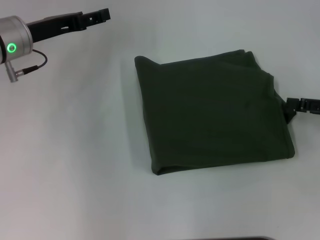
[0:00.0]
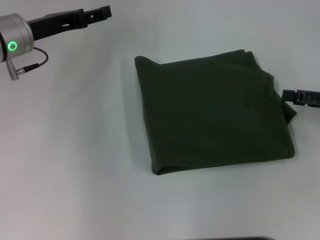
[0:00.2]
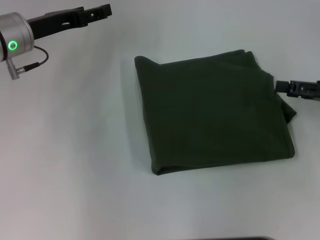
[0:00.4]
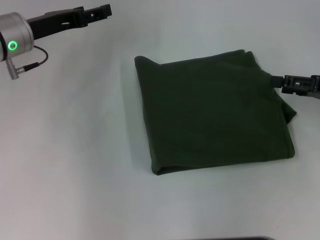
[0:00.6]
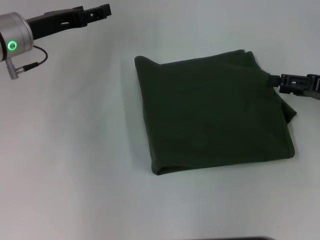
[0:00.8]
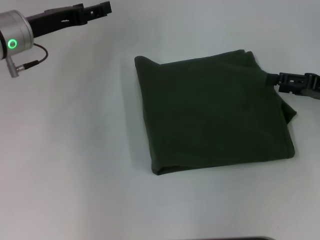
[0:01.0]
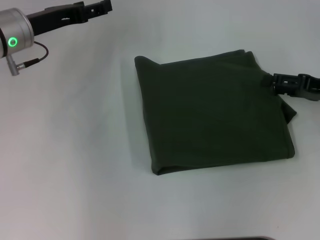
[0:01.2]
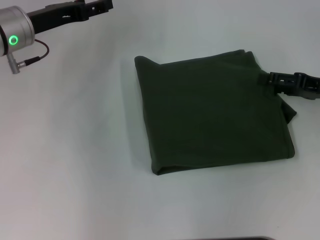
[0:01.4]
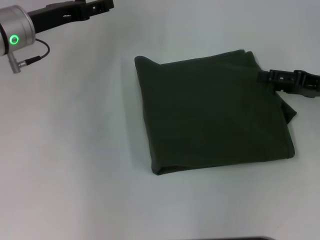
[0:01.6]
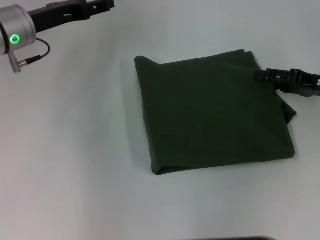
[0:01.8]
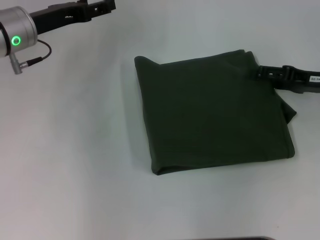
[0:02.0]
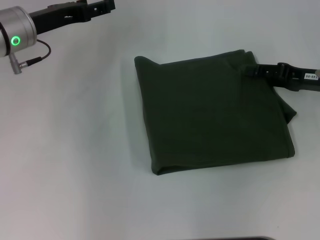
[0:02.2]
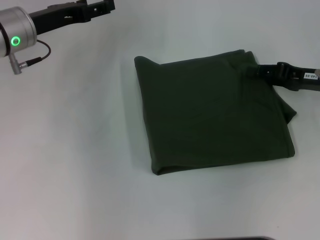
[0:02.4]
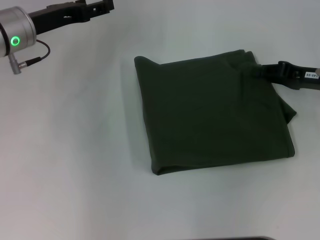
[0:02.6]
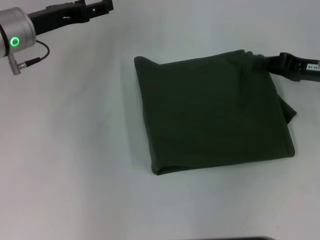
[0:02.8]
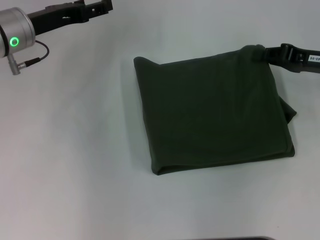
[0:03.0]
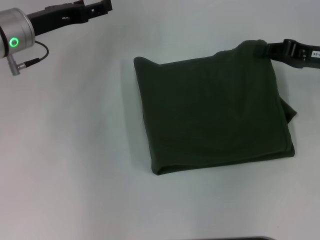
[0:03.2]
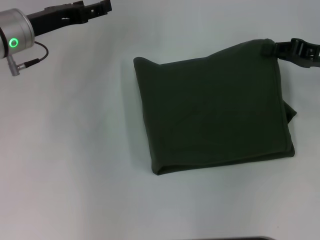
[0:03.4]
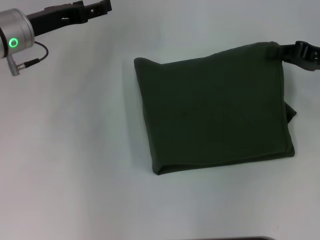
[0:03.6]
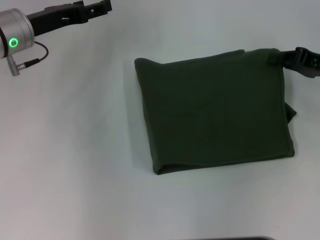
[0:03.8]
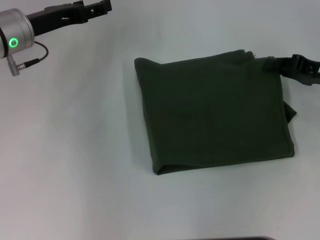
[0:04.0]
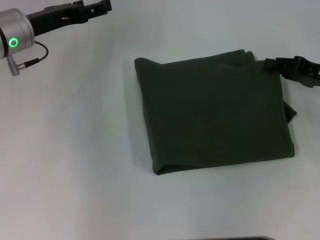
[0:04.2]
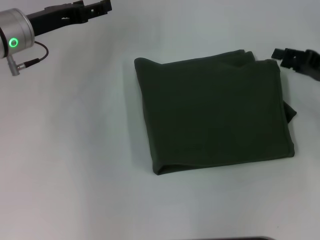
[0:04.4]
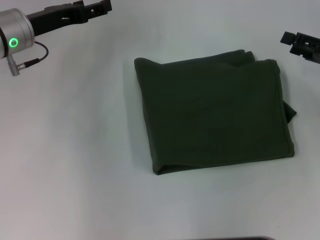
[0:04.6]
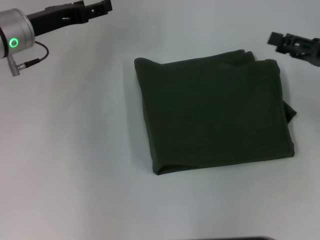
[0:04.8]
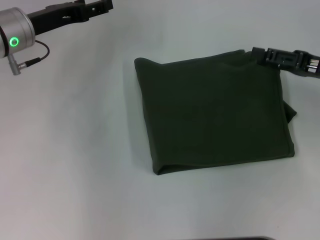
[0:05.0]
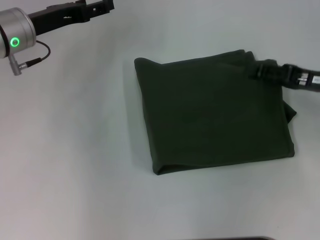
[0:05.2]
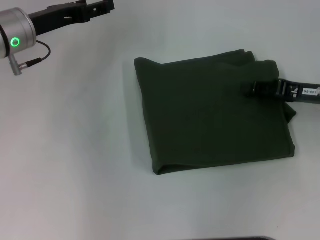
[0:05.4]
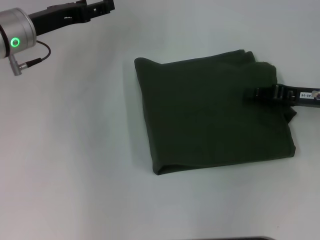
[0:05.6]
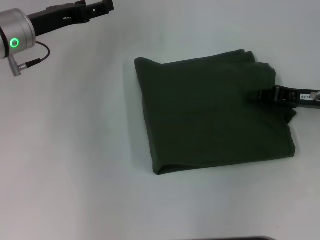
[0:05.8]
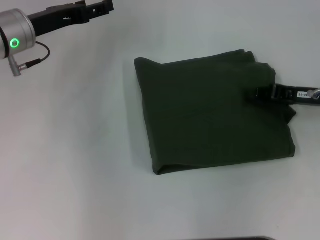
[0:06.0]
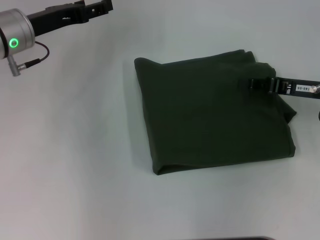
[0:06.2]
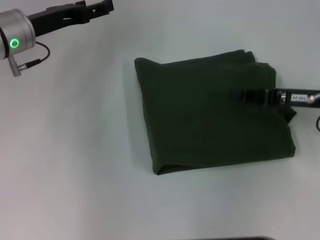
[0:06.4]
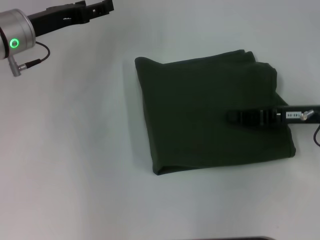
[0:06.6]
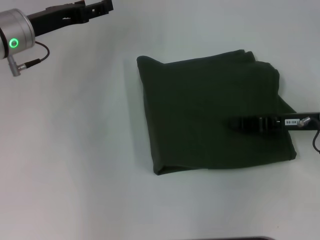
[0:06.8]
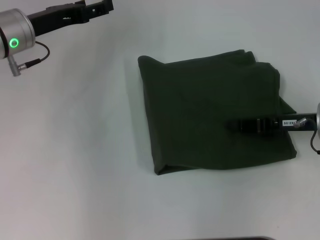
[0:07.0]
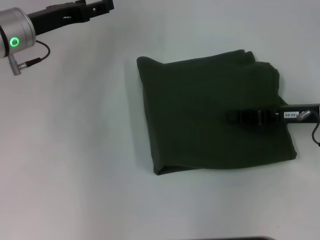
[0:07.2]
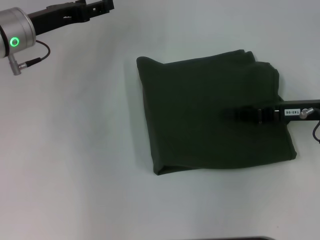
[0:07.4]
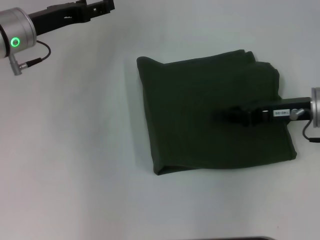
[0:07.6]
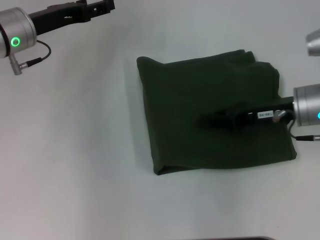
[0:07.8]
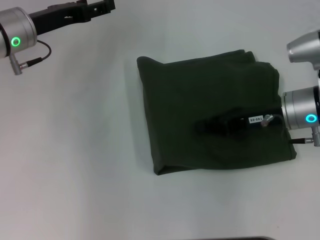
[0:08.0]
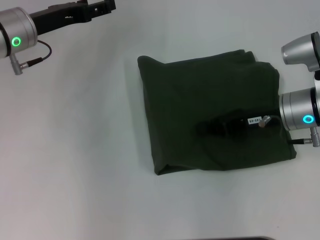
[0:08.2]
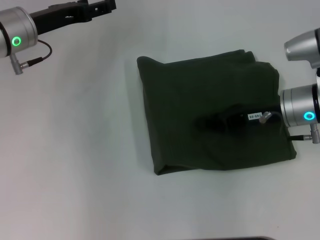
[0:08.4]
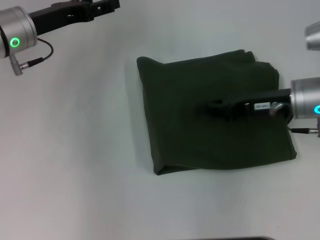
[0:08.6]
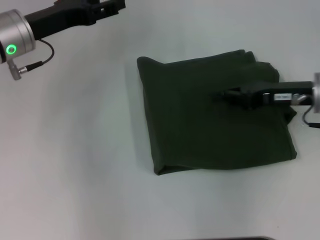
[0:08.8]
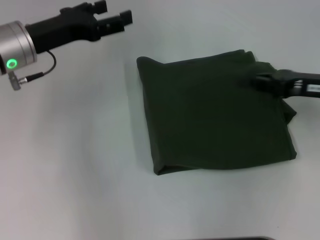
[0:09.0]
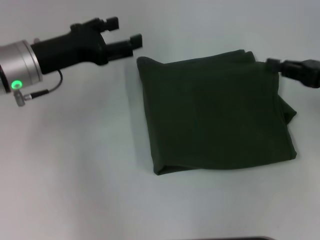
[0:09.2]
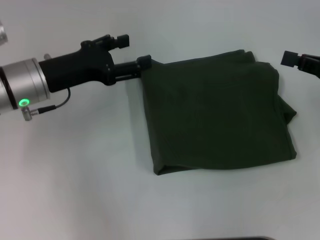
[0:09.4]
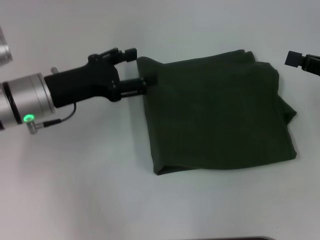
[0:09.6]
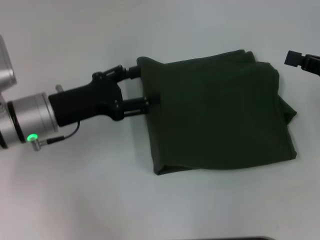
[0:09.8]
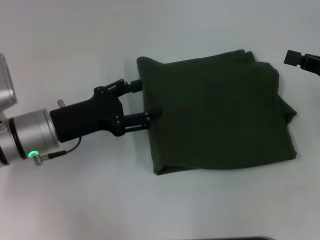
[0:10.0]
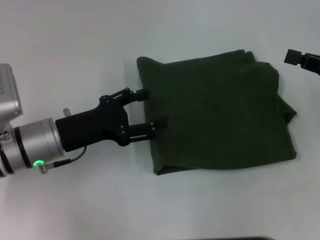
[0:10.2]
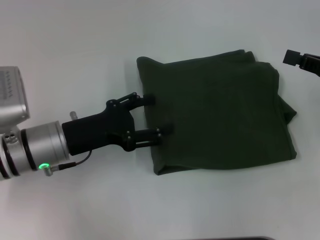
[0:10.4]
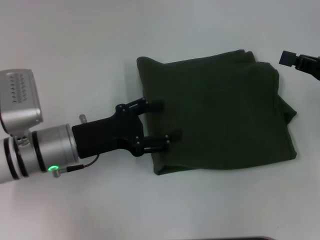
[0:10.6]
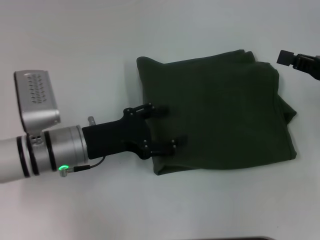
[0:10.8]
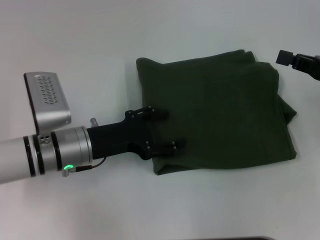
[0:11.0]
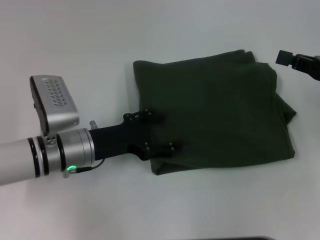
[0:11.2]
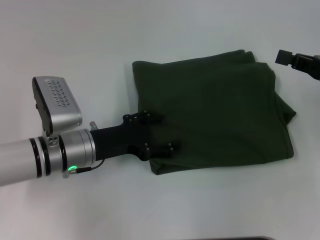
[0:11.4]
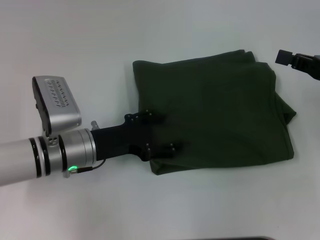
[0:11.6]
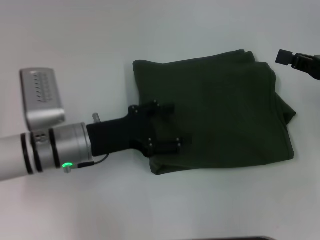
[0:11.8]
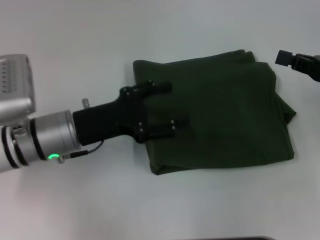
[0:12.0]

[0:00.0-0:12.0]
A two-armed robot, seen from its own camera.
0:00.0 to 0:01.6: The right gripper shifts by roughly 5 cm, and opens up.
0:01.6 to 0:03.0: The right gripper closes up.
0:03.0 to 0:04.4: The grippers stay close to where they were, moving slightly.
0:04.4 to 0:06.0: The right gripper opens, then closes once more.
0:06.0 to 0:07.6: The right gripper moves about 5 cm.
0:07.6 to 0:09.0: The right gripper moves roughly 5 cm.
0:09.0 to 0:10.4: The left gripper shifts some 10 cm backward and downward.
0:10.4 to 0:12.0: The grippers stay close to where they were, moving slightly.

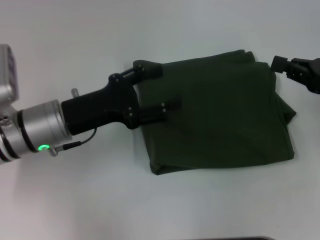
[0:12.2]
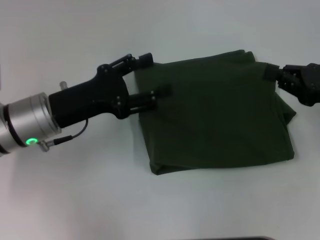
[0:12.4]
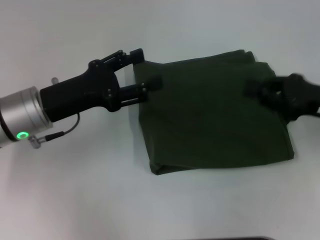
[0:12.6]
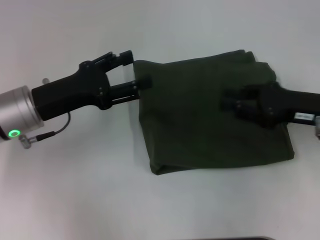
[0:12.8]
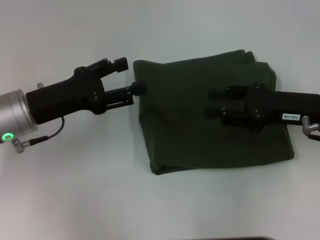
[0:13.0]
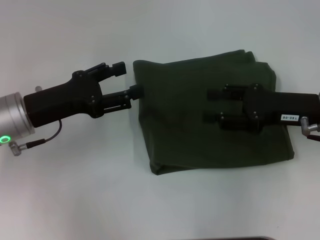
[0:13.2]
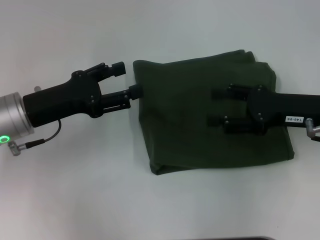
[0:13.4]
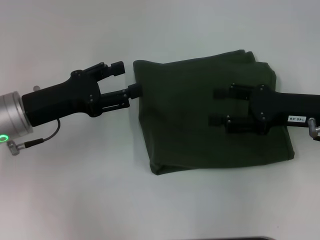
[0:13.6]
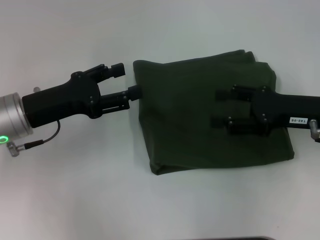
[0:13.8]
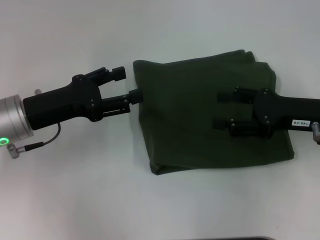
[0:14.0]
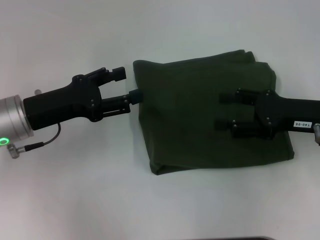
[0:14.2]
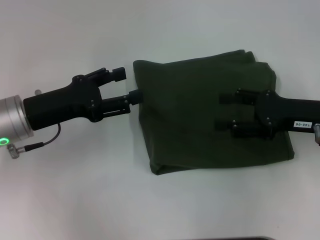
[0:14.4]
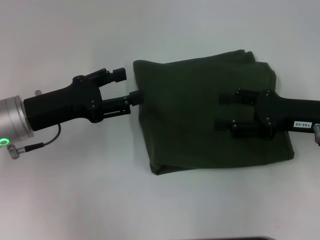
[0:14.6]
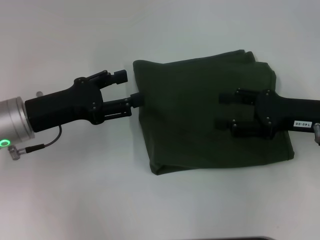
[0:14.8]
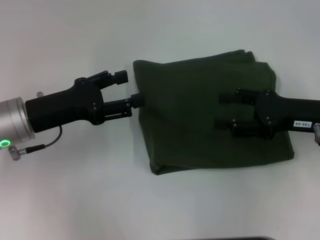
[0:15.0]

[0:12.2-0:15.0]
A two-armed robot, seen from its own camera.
0:12.2 to 0:13.6: The left gripper moves approximately 5 cm, while the right gripper moves to the left, about 5 cm, and opens.
0:13.6 to 0:15.0: Neither gripper changes place.

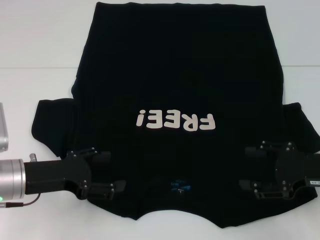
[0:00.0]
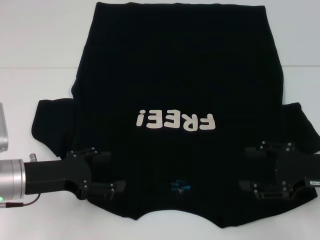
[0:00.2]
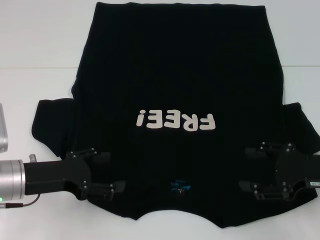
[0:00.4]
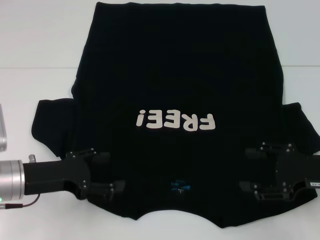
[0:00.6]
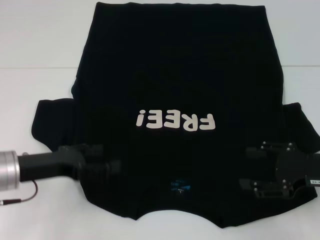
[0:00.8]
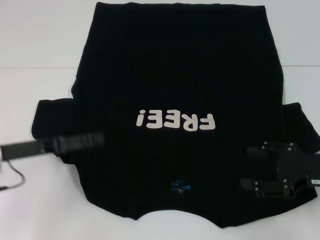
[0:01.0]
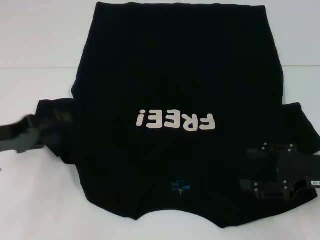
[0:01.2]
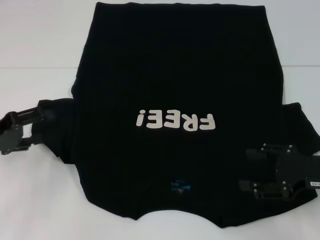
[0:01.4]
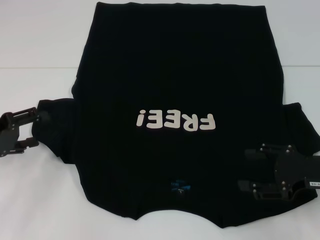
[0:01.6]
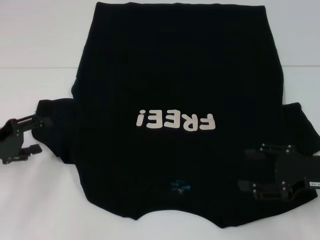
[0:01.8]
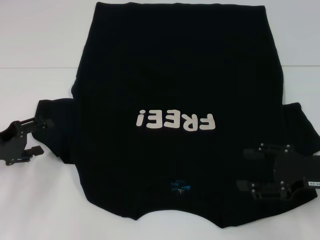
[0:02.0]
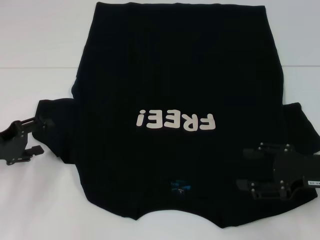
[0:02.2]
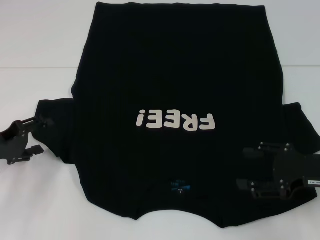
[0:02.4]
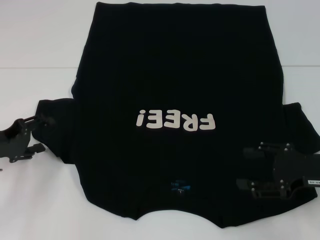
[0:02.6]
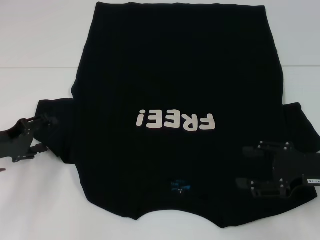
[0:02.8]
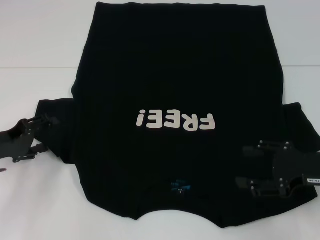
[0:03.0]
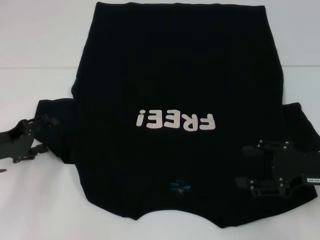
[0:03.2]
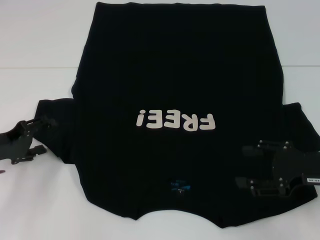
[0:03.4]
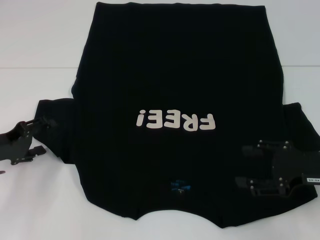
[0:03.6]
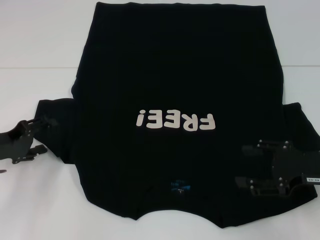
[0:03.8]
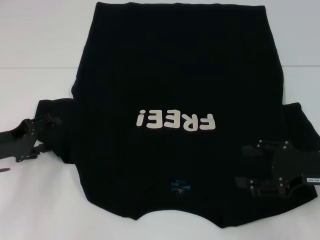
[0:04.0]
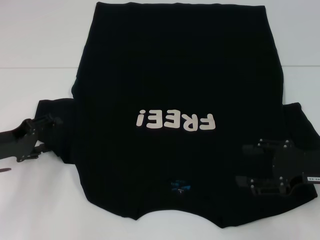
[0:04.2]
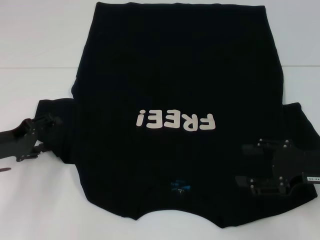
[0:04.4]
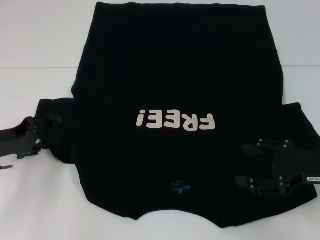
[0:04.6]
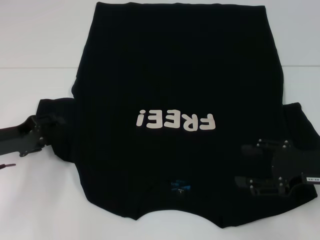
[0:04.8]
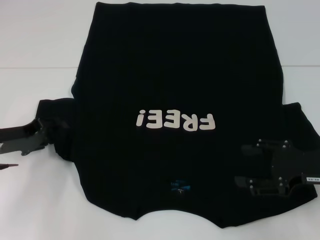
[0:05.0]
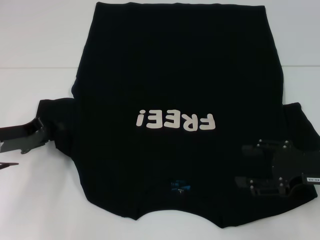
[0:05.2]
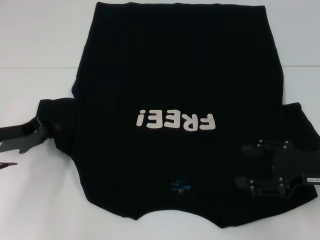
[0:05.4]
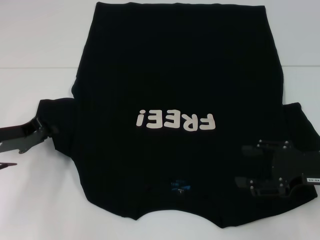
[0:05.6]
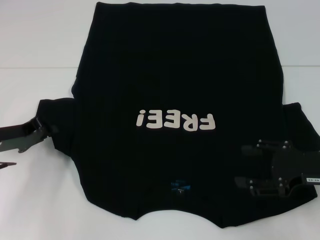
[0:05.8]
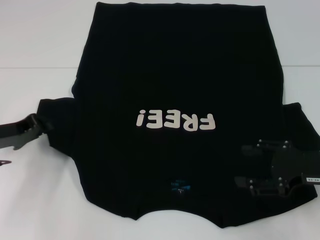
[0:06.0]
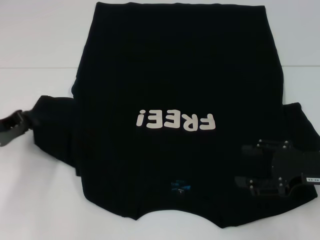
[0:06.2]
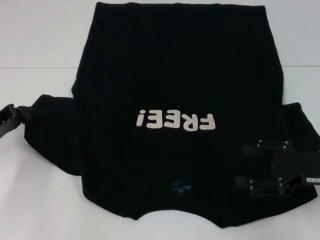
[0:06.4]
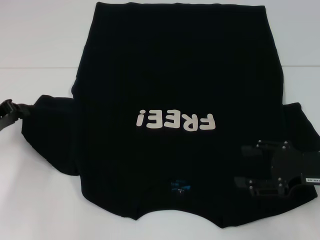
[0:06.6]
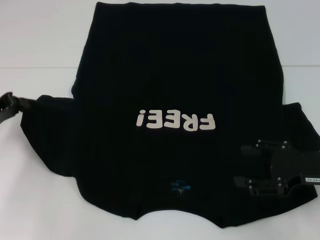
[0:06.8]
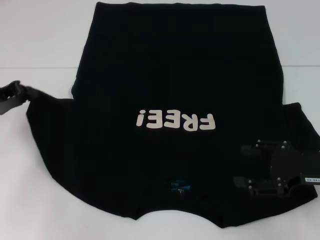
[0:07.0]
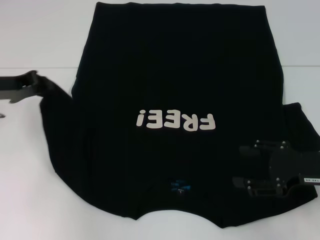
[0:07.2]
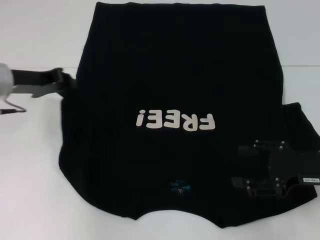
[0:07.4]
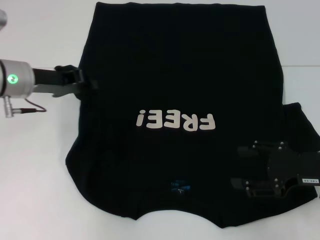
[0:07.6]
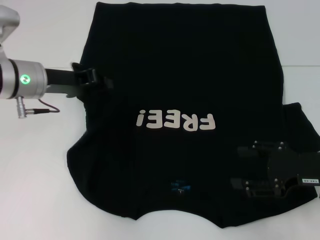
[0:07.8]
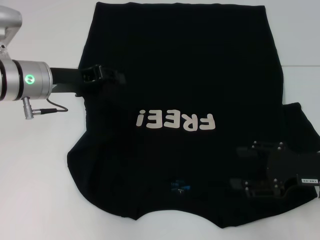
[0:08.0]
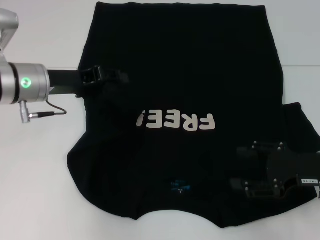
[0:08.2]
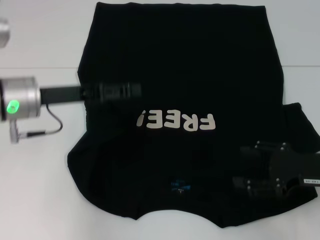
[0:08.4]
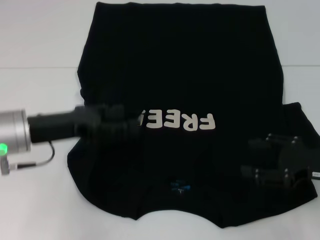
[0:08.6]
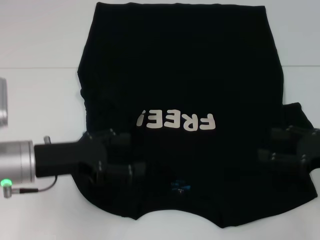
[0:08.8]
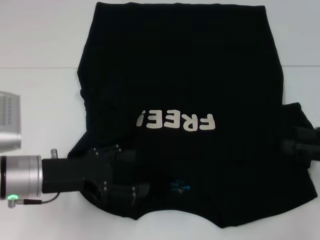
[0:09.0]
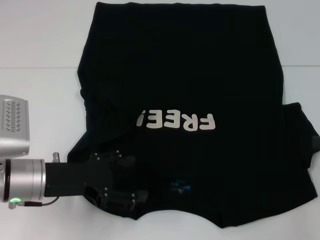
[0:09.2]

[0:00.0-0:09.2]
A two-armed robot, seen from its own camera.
Step, 0:00.0 to 0:08.2: Fold the bottom left sleeve with your left hand.
0:00.0 to 0:01.6: The left gripper is displaced to the left by roughly 10 cm.
0:01.6 to 0:03.0: There are only small adjustments of the grippers.
0:03.0 to 0:04.6: Neither gripper changes place.
0:04.6 to 0:06.2: The left gripper closes.
0:06.2 to 0:07.6: The left gripper moves to the right, upward and forward, approximately 15 cm.
0:07.6 to 0:09.2: The left gripper goes about 15 cm backward and downward, and opens. The right gripper heads to the right, covering roughly 10 cm.
